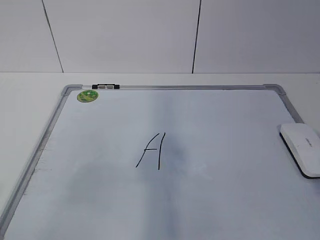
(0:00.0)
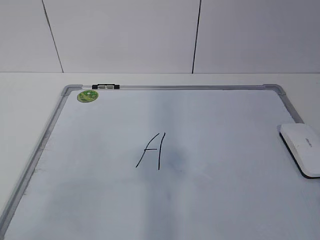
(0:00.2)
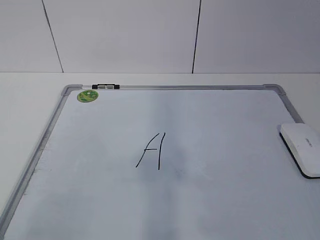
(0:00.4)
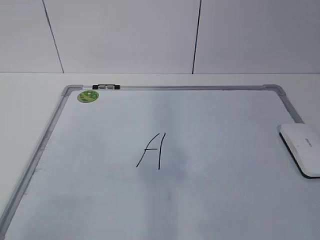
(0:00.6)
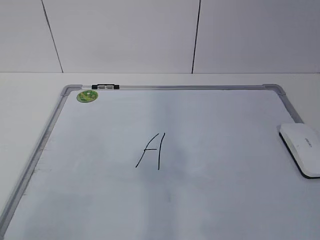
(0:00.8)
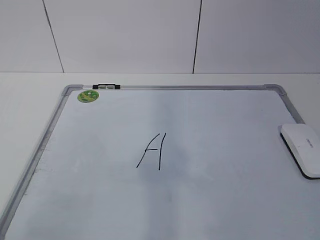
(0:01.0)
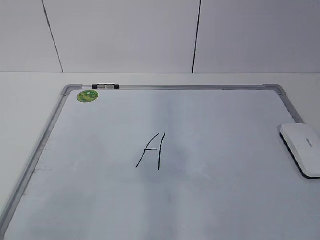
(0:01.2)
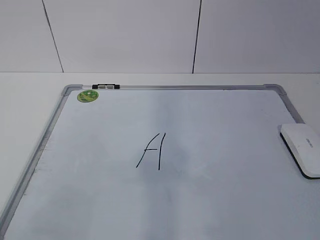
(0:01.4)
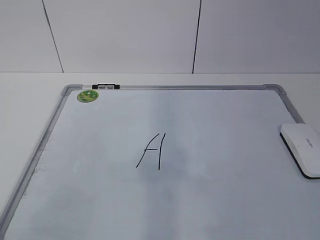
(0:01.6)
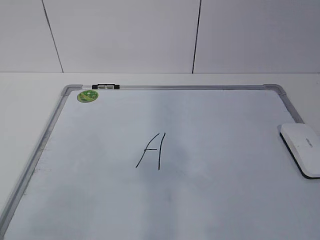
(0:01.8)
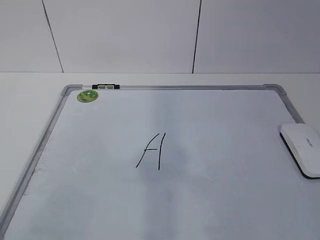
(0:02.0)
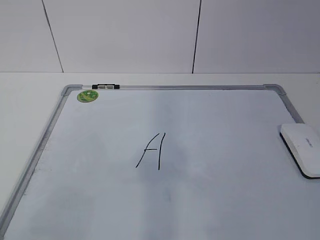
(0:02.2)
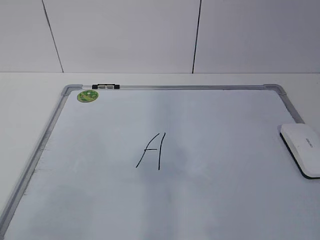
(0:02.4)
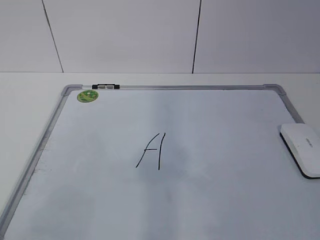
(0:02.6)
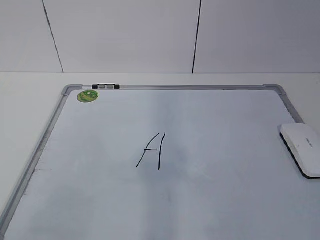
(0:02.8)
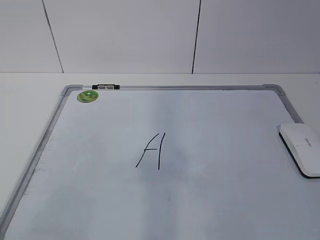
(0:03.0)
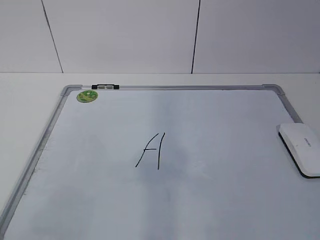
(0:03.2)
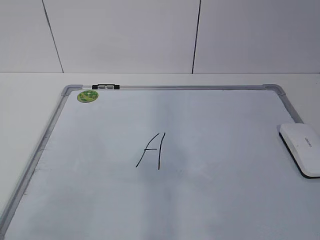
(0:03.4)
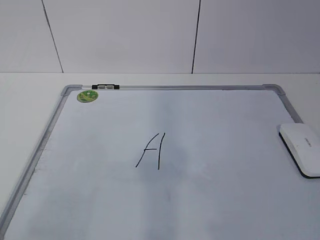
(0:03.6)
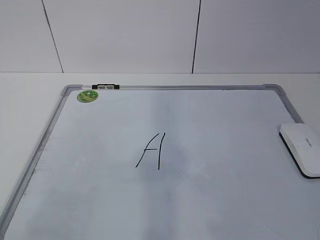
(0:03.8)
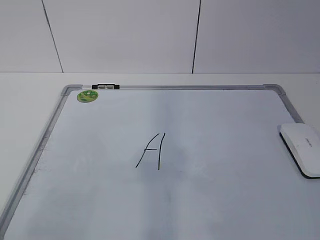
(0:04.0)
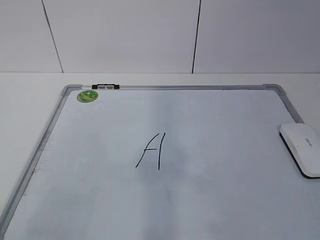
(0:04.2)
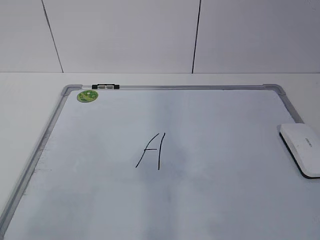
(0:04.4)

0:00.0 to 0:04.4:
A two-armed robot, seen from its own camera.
Task of the whole recording: pick up the eraser on the blackboard and erase the letter "a".
0:01.4 to 0:03.0: Both grippers stay about where they are.

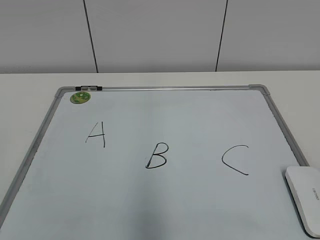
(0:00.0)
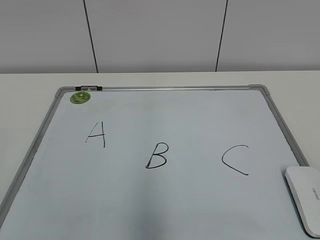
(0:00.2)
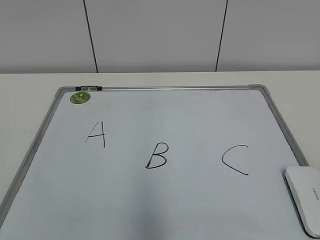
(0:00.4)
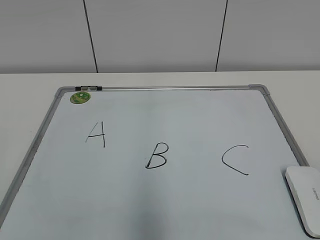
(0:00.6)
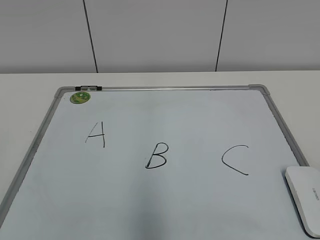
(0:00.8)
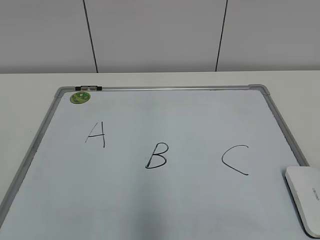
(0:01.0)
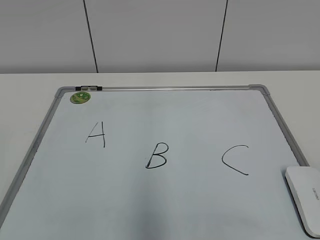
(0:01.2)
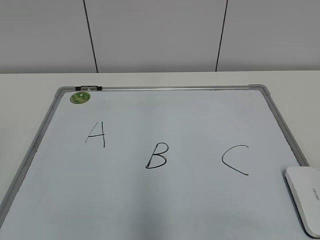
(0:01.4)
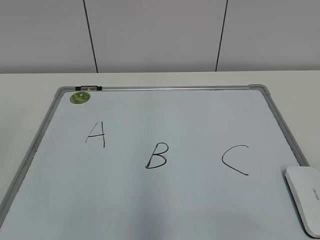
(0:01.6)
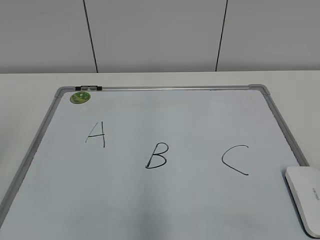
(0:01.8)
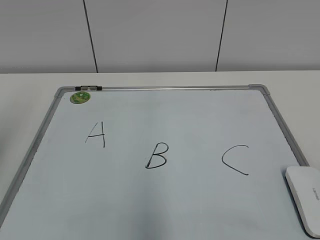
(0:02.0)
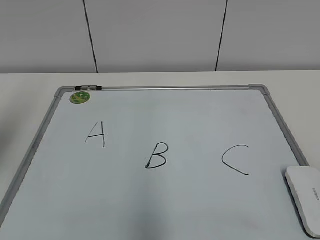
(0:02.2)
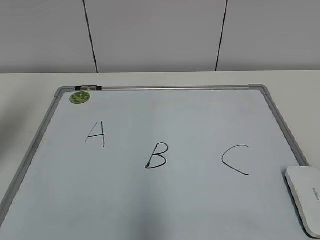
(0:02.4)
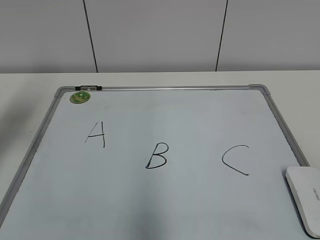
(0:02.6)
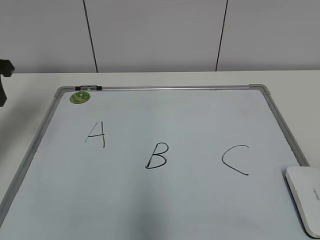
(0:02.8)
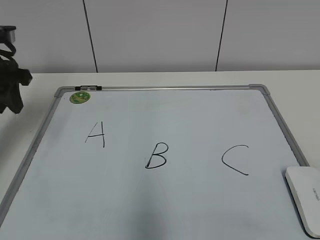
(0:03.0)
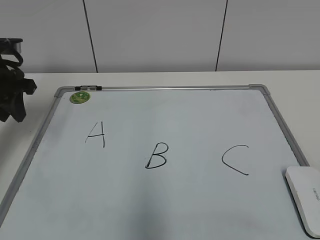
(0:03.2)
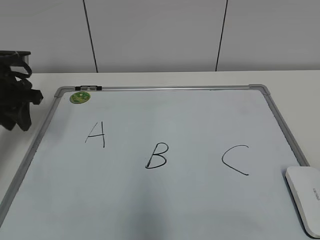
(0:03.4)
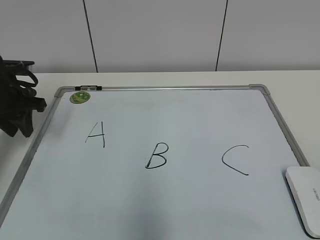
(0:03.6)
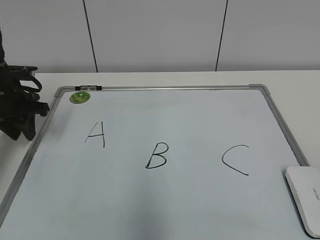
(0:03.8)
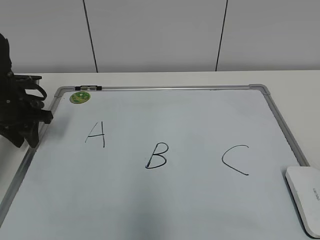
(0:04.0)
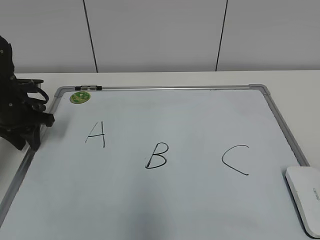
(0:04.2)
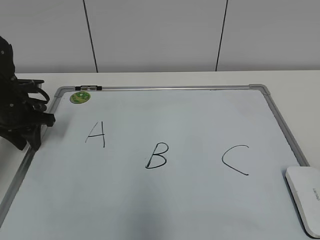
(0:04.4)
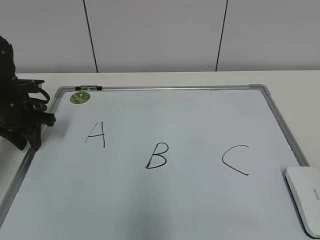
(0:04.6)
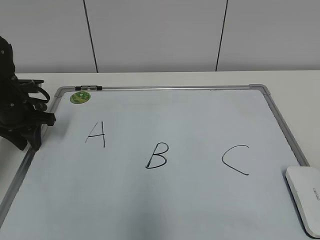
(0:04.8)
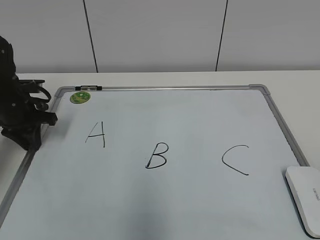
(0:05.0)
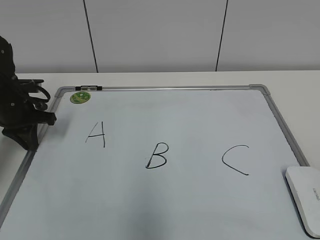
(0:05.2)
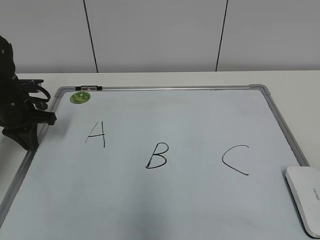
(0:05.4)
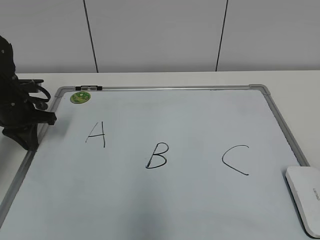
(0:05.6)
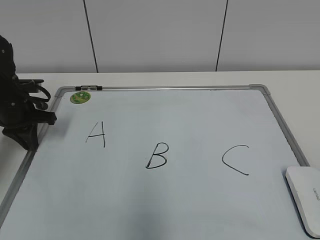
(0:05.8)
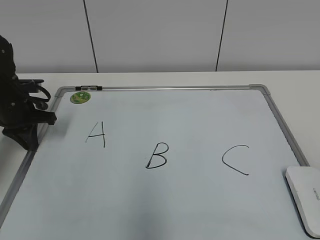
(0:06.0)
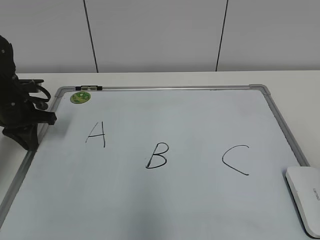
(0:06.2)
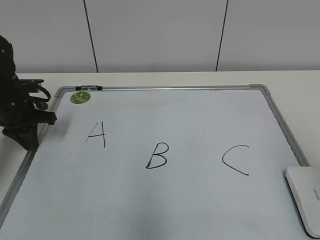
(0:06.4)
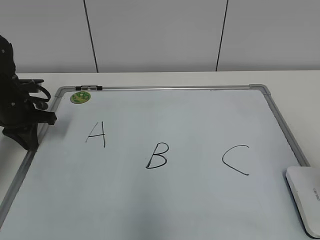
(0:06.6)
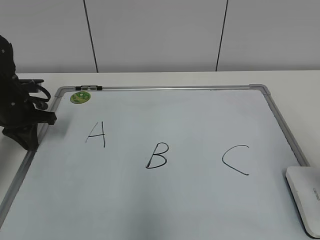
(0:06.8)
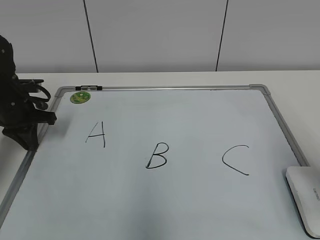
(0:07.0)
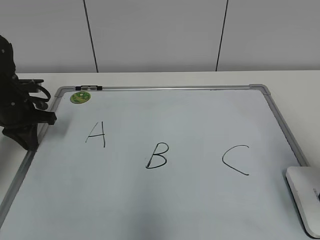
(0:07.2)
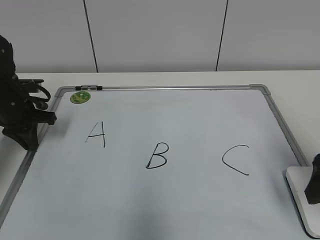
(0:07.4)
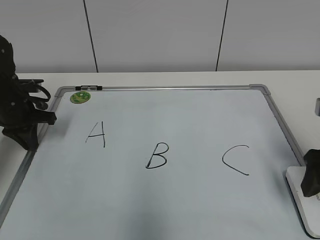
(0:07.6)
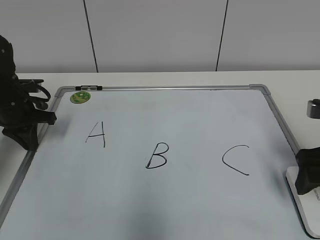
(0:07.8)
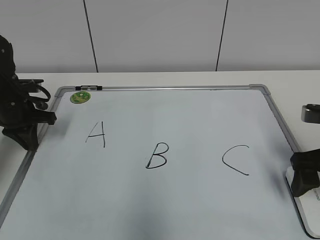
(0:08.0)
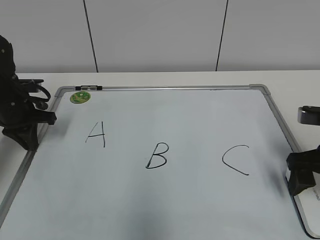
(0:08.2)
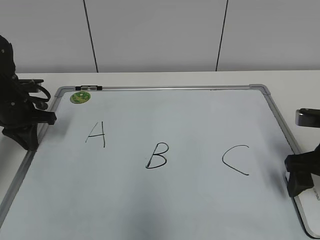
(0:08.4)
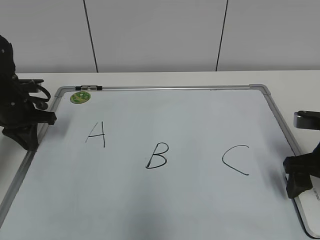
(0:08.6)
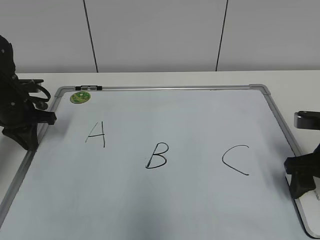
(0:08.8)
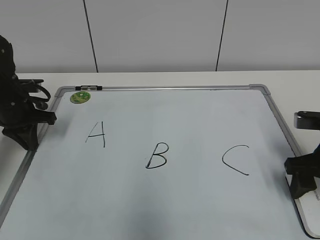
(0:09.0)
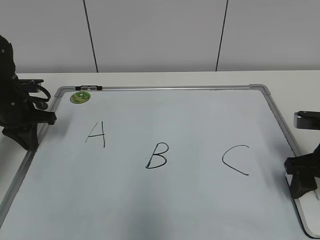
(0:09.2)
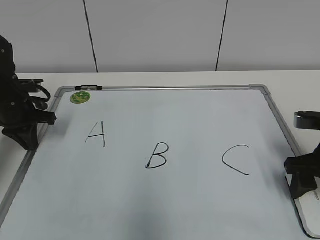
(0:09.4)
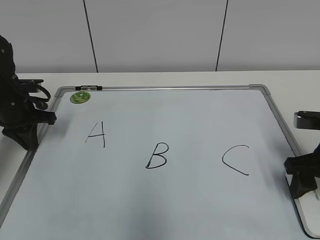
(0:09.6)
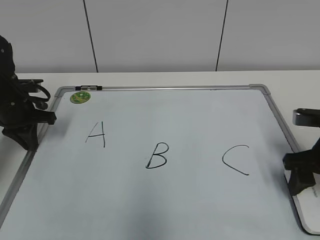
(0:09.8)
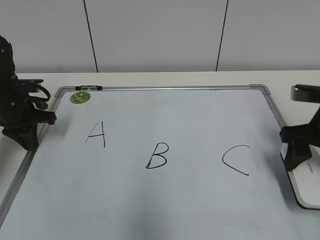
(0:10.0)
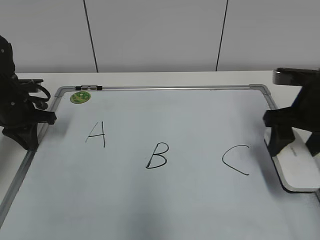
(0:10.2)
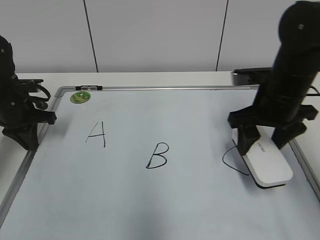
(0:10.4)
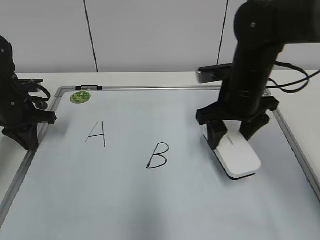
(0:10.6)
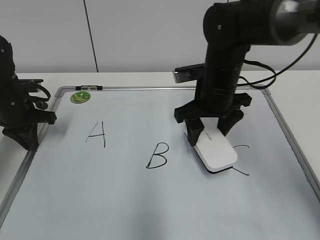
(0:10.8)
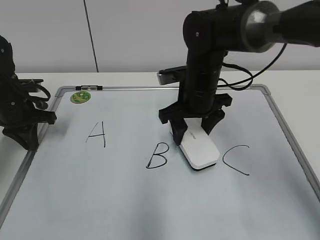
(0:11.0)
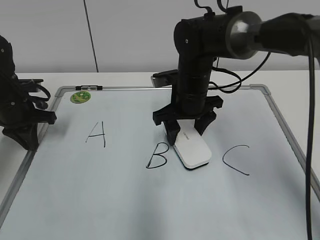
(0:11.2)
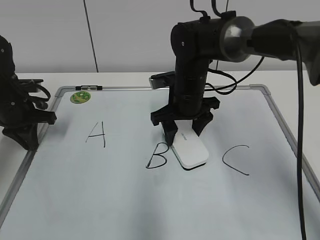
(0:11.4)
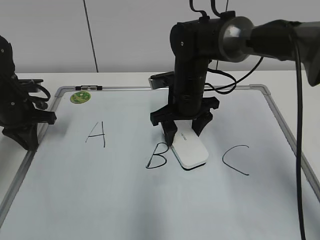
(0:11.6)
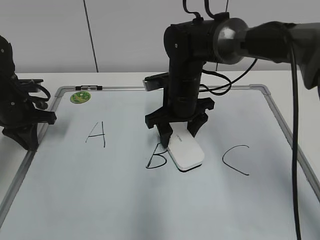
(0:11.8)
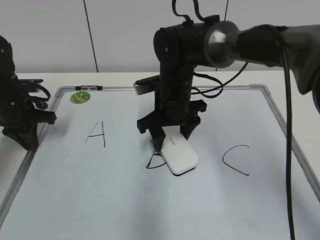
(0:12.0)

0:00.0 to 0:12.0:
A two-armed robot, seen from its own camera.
Task of the whole recording: pick up the eraser on the blackboard and erase the letter "B".
Step, 0:00.0 to 0:05.6: Hold the drawing board steady with your left hand.
Step, 0:06.0 to 0:09.2: Grab the eraser with your right hand.
0:01.6 to 0:03.0: The left gripper travels forward by about 30 cm.
0:03.0 to 0:04.4: The left gripper moves downward, about 10 cm.
0:04.4 to 0:06.0: The left gripper closes.
0:06.0 to 0:07.6: The right gripper is displaced forward by approximately 20 cm, and opens up.
0:07.6 to 0:09.0: The right gripper shifts some 5 cm downward, and closes its fingers.
0:09.0 to 0:10.4: The right gripper shifts approximately 15 cm to the left, forward and upward.
0:10.4 to 0:12.0: The right gripper travels to the left by about 15 cm.

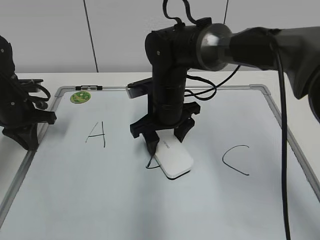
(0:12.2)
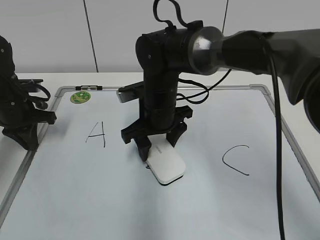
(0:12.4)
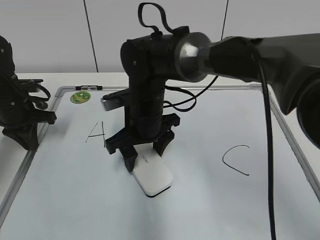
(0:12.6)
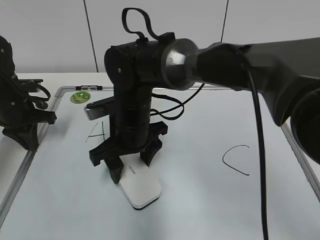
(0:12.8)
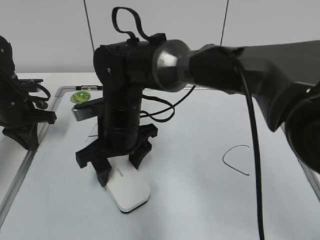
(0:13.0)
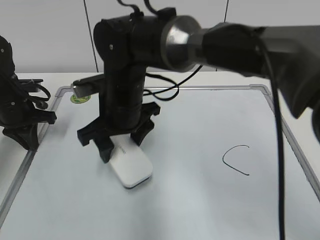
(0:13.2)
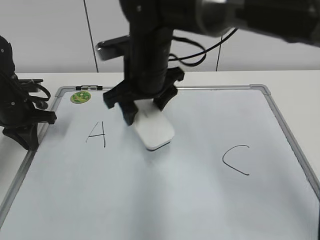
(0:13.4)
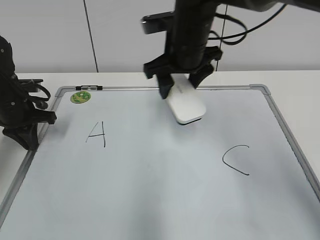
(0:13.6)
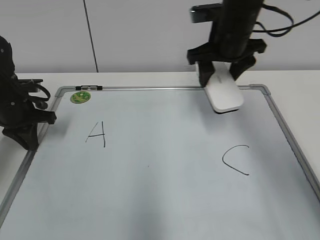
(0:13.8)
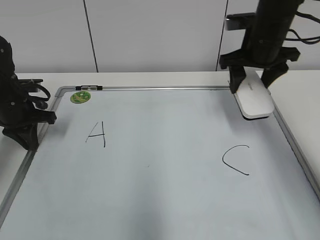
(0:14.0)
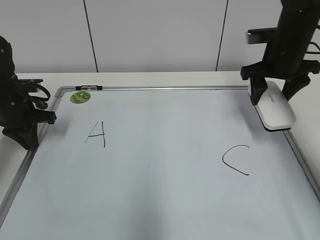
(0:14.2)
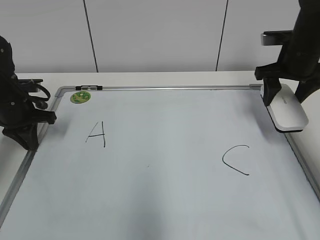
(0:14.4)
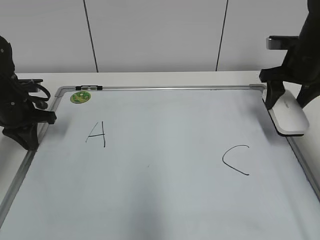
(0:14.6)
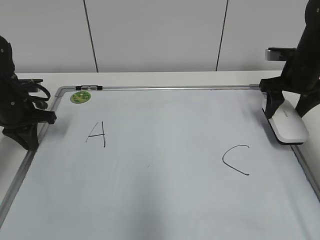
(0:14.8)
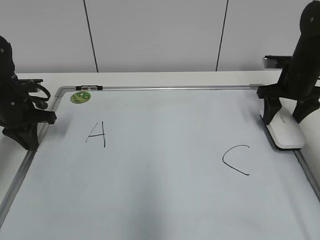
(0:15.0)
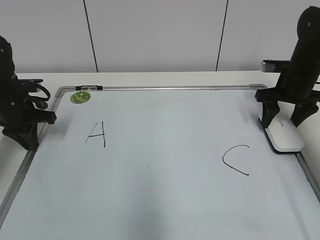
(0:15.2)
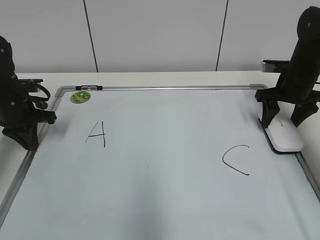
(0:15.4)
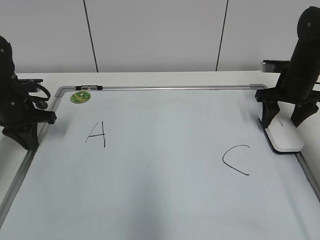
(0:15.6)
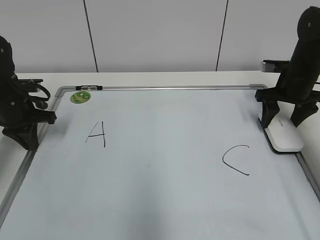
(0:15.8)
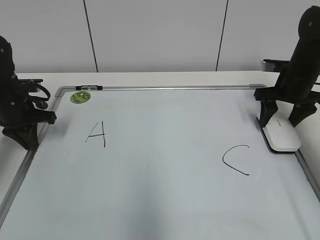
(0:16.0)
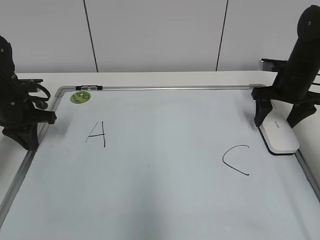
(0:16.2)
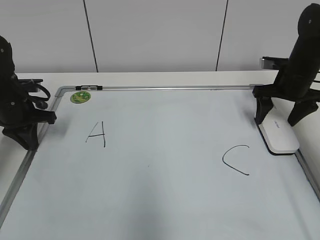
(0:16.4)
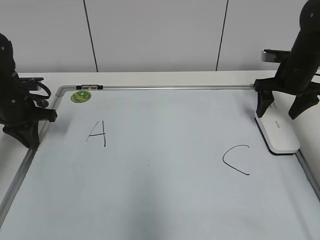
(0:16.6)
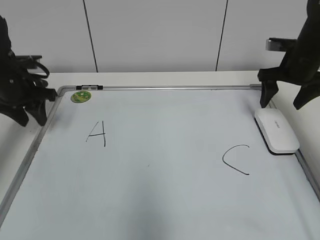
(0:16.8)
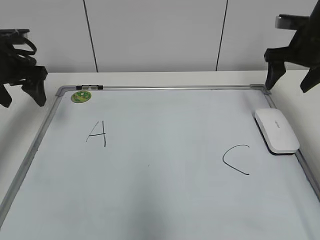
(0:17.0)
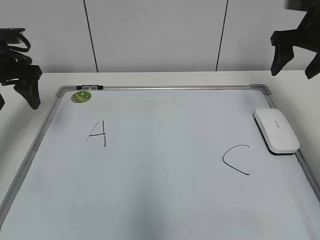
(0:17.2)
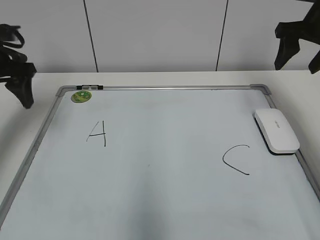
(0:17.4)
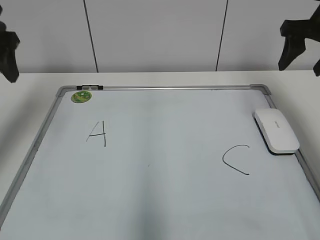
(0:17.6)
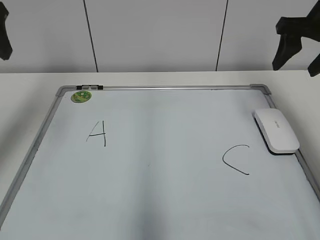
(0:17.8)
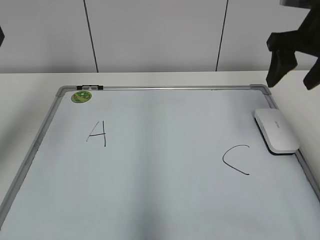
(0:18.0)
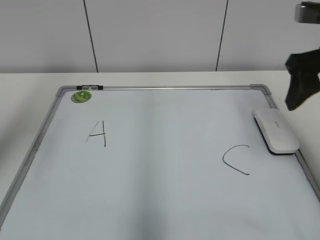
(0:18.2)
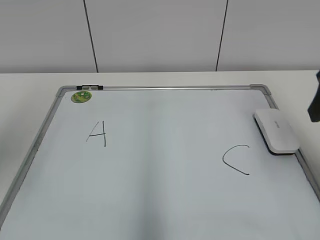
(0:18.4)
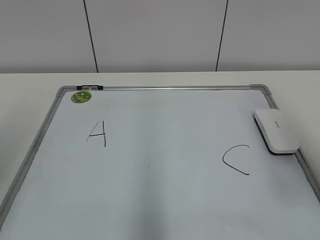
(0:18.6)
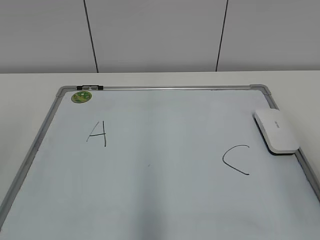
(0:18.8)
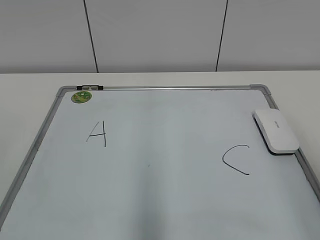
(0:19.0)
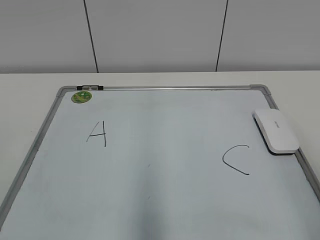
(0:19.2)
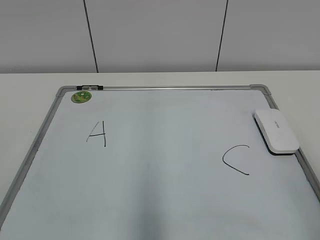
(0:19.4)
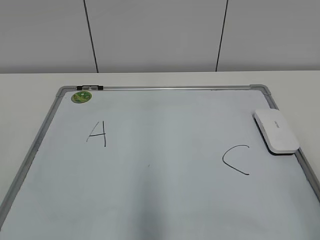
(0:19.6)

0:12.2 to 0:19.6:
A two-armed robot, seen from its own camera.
Task of the whole recording: pick up the eraser on the blackboard and erase the letter "B".
Step, 0:13.2 to 0:15.6: Put down the eraser with your right hand.
0:12.2 to 0:13.6: The right gripper is displaced upward by some 10 cm.
0:13.6 to 0:15.2: The right gripper shifts approximately 25 cm to the right and downward.
0:15.2 to 0:16.6: The right gripper opens its fingers.
0:16.6 to 0:18.2: The right gripper goes about 20 cm backward and upward, and closes up, while the left gripper heads upward and backward, covering roughly 30 cm, and opens.
0:18.2 to 0:19.6: The two grippers go some 25 cm backward.
